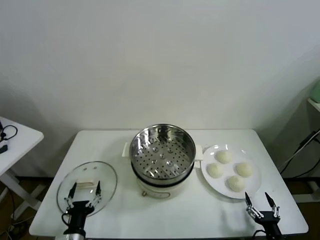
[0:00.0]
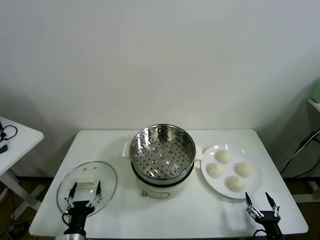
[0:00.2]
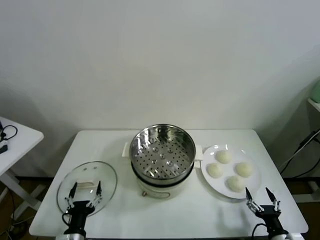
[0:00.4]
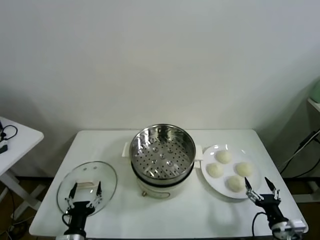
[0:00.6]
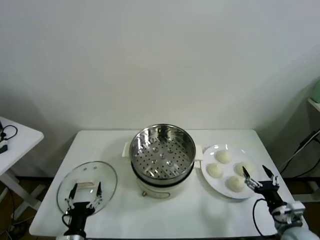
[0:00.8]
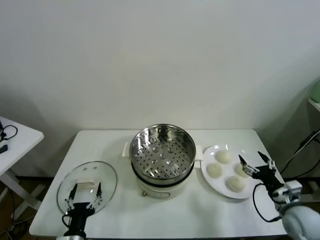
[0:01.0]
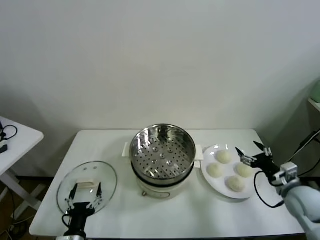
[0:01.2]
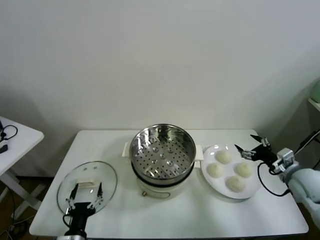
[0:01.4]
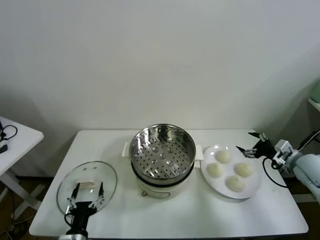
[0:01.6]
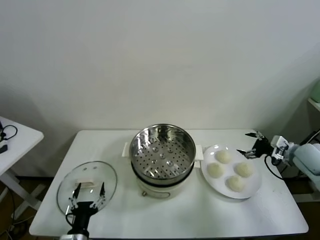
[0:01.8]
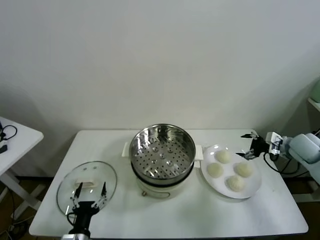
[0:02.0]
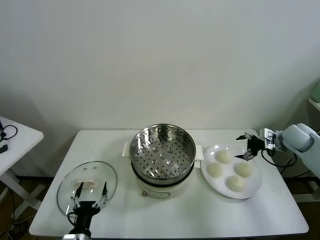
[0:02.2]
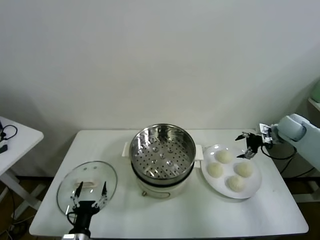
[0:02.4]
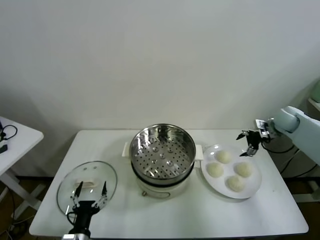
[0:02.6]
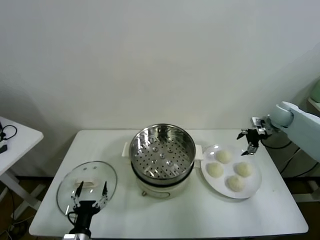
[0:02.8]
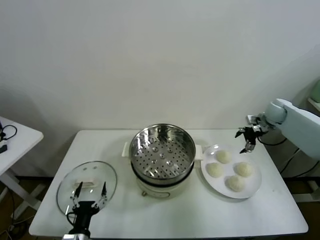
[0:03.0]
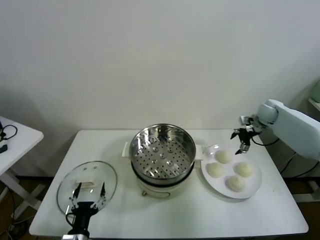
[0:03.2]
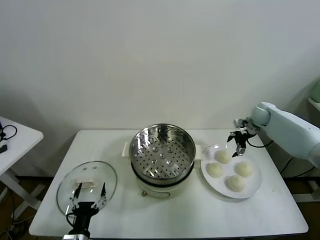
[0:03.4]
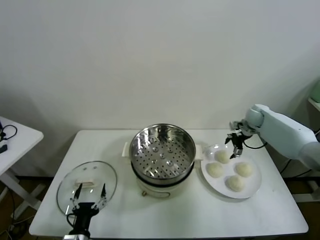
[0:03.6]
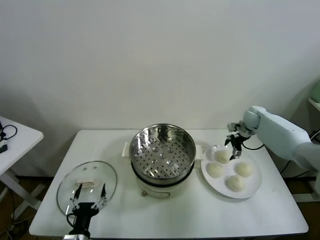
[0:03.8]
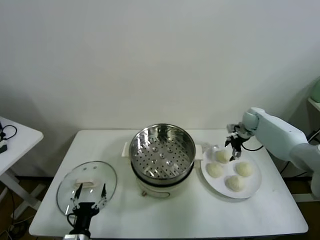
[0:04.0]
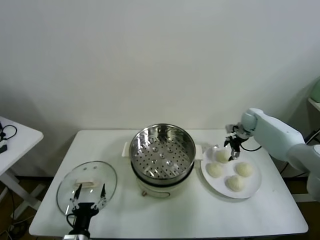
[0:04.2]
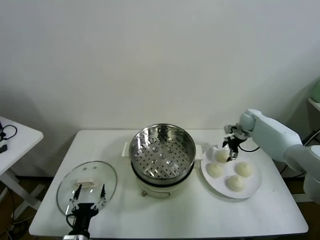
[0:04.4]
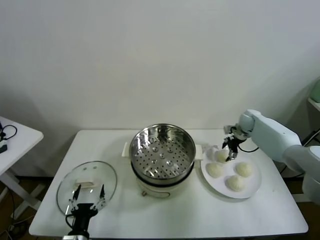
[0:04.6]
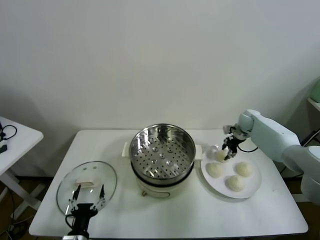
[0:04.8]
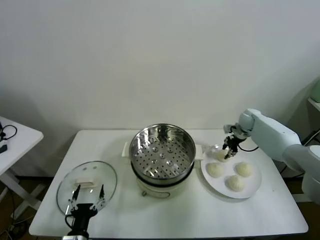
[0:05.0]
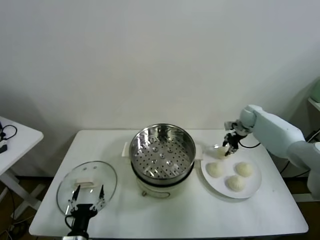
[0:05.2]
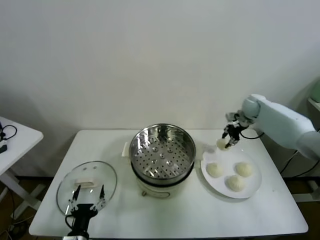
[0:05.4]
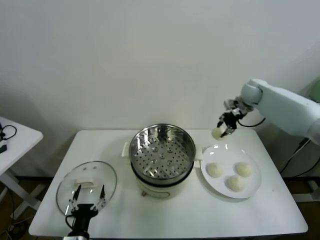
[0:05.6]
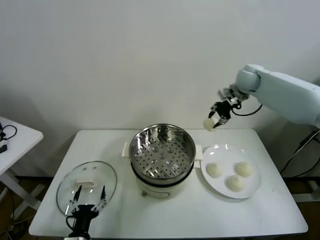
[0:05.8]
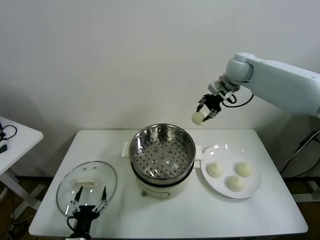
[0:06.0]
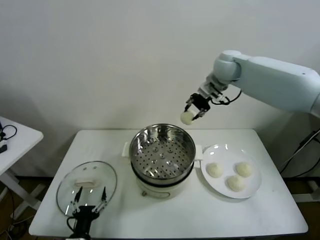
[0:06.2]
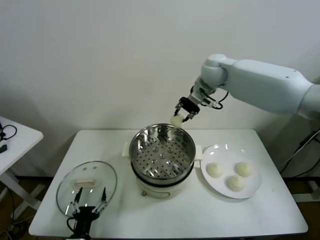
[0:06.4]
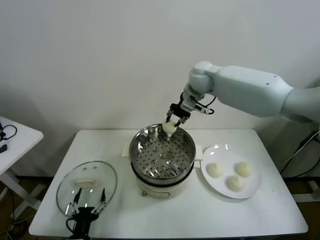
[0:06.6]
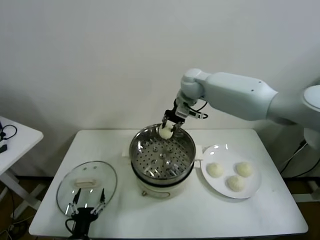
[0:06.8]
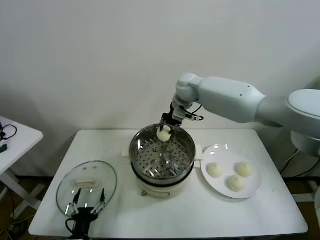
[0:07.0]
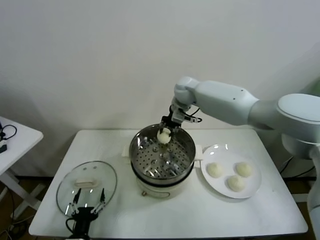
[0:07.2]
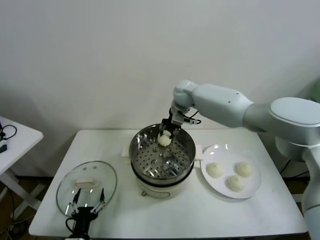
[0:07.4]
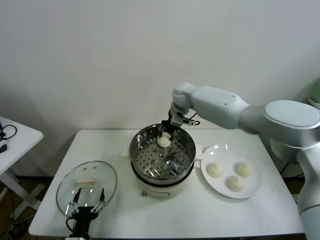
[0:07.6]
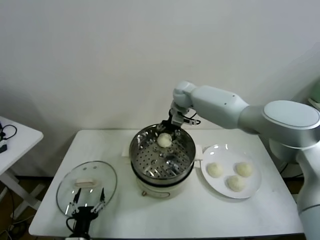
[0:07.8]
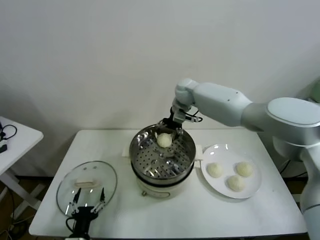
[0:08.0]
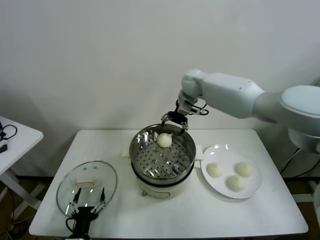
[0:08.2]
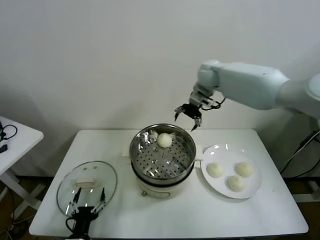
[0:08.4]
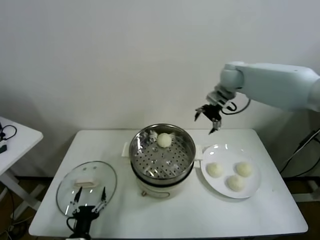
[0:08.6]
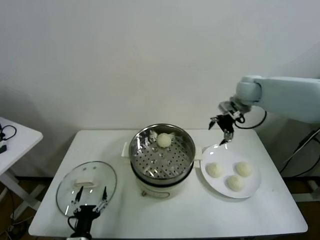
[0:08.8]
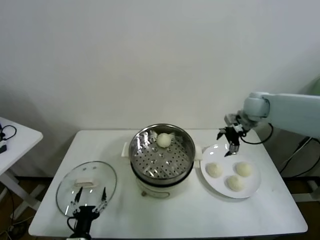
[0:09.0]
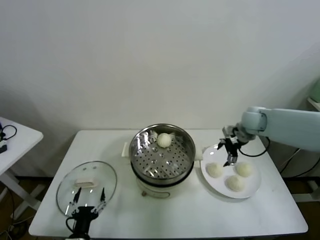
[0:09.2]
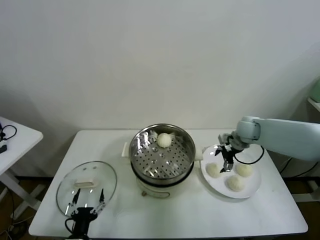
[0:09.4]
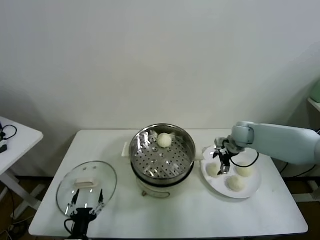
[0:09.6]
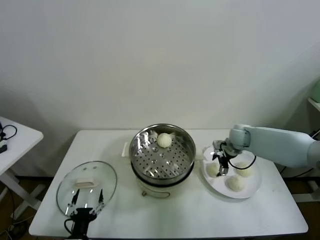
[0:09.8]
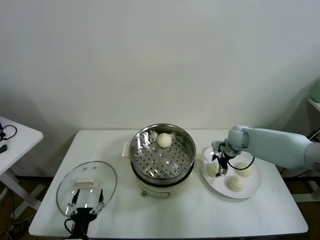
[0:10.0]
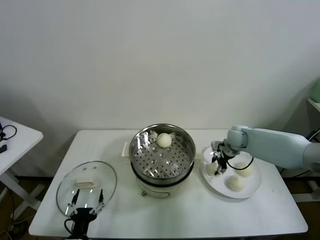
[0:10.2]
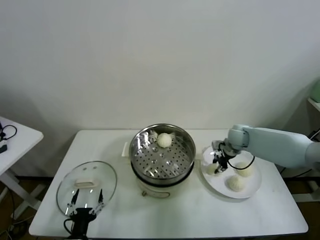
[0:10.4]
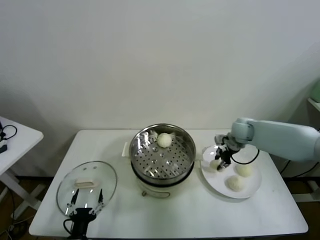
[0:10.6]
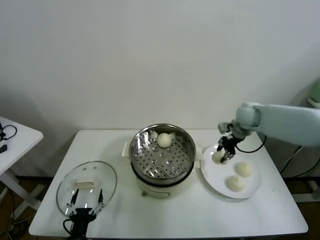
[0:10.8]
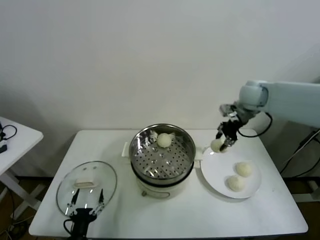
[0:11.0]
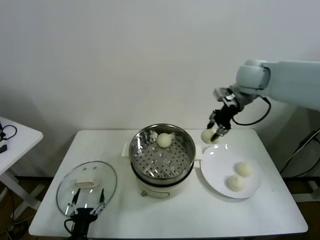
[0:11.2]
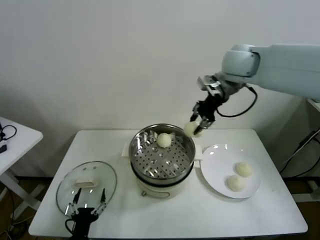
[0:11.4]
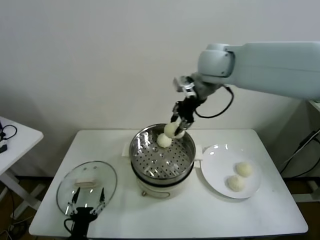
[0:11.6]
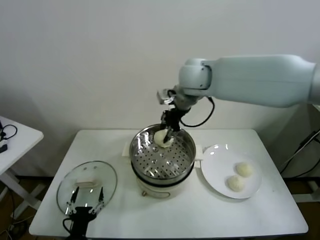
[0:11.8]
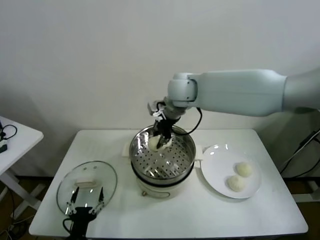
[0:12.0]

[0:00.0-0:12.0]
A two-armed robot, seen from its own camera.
Task of the whole recording: take steamed baozi put them in steamer.
Step, 0:00.0 to 0:04.6: Grasp the baozi in the plate with right gripper.
Step, 0:04.8 to 0:07.8: Place the baozi on the steamer with right gripper.
Step, 0:08.0 to 0:10.0: Grasp the baozi in the plate with right gripper.
0:01.6 to 0:03.0: The right gripper moves forward, approximately 20 cm.
0:03.0 to 0:04.4: The right gripper heads downward and to the left, covering approximately 10 cm.
0:04.4 to 0:06.0: The right gripper travels upward and to the left by some 30 cm, and closes its fingers.
0:06.0 to 0:07.6: The right gripper moves to the left and downward, some 20 cm.
0:07.6 to 0:09.0: The right gripper is displaced to the right by approximately 25 cm, and opens its fingers.
0:09.0 to 0:10.4: The right gripper shifts roughly 15 cm downward, and closes up.
0:10.4 to 0:12.0: The right gripper moves to the left and upward, some 35 cm.

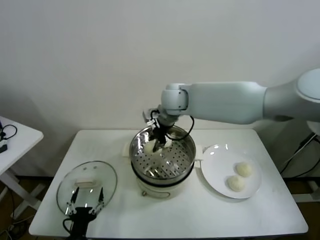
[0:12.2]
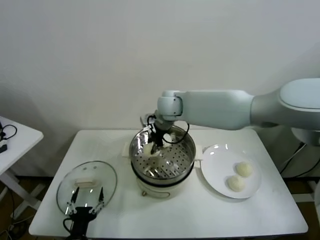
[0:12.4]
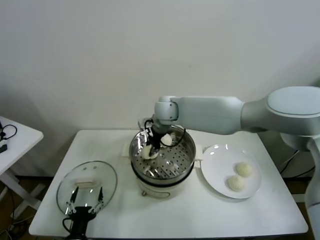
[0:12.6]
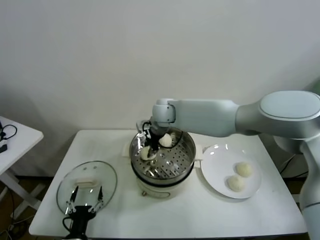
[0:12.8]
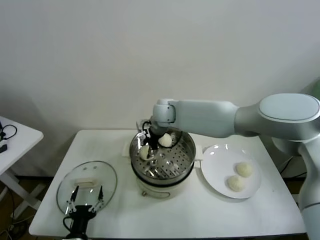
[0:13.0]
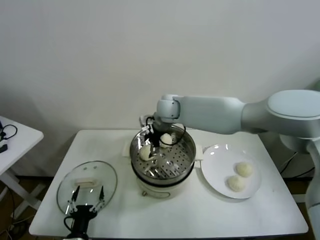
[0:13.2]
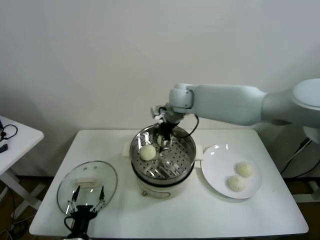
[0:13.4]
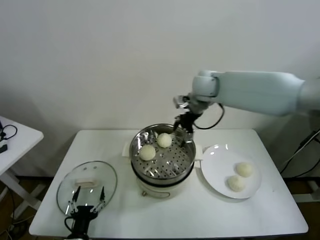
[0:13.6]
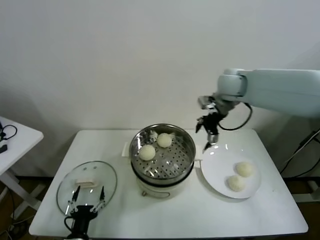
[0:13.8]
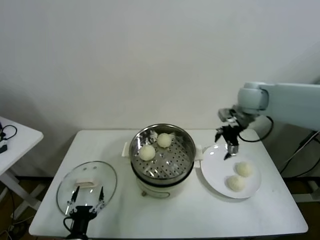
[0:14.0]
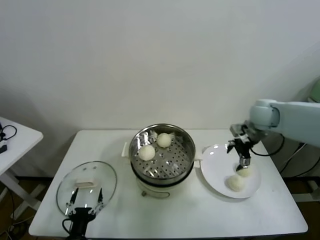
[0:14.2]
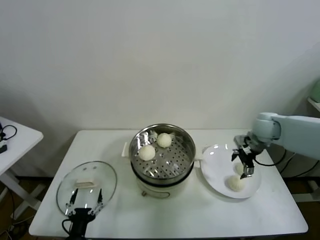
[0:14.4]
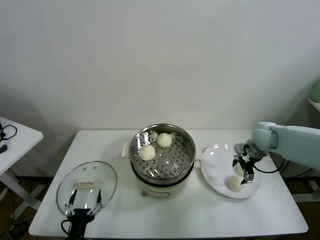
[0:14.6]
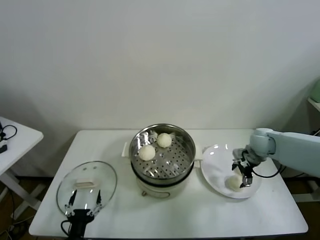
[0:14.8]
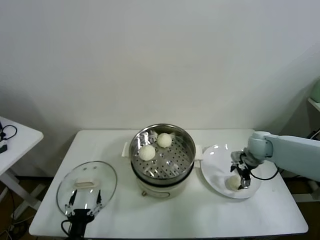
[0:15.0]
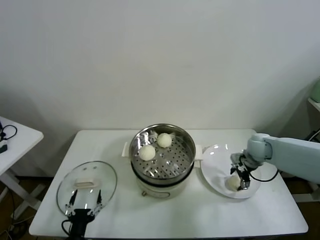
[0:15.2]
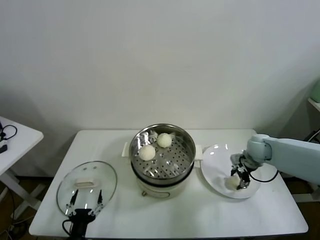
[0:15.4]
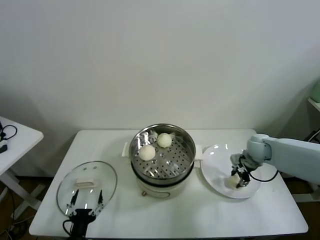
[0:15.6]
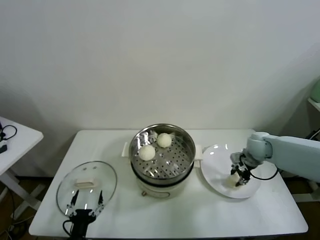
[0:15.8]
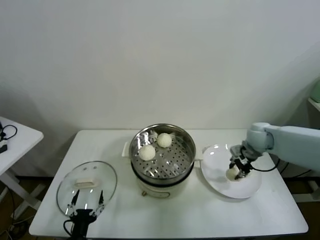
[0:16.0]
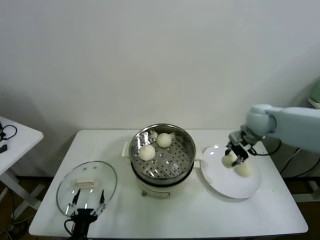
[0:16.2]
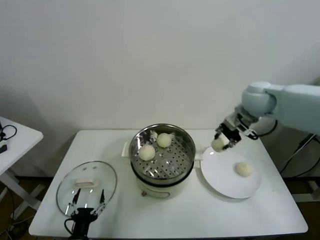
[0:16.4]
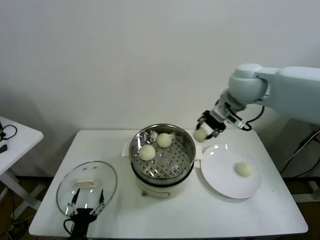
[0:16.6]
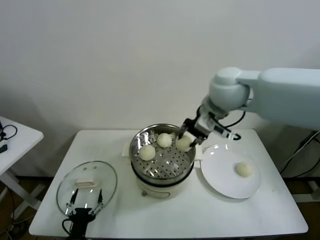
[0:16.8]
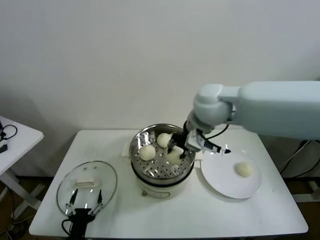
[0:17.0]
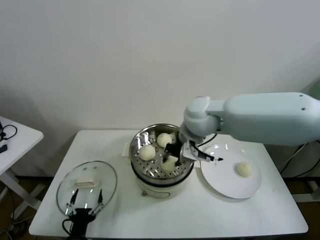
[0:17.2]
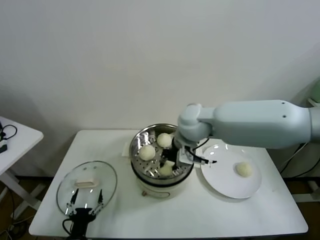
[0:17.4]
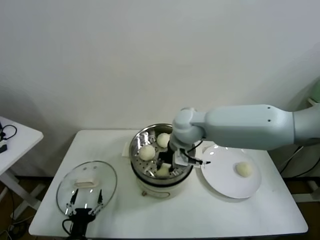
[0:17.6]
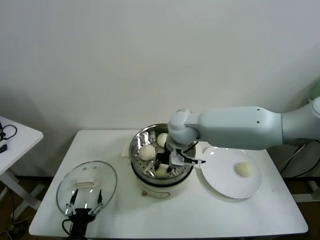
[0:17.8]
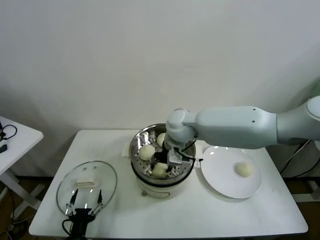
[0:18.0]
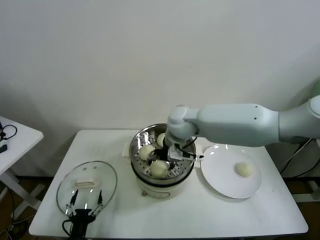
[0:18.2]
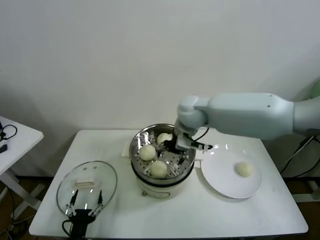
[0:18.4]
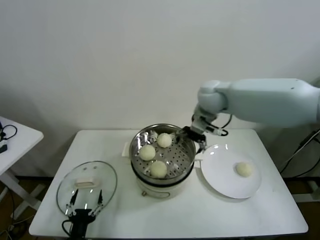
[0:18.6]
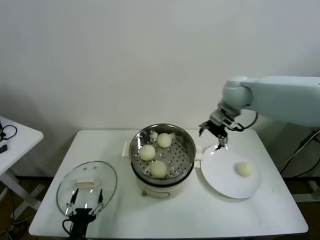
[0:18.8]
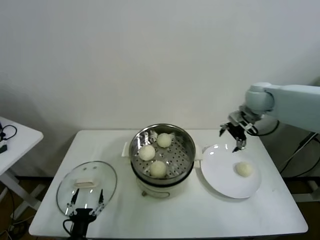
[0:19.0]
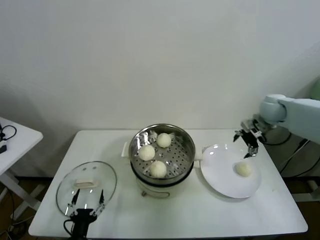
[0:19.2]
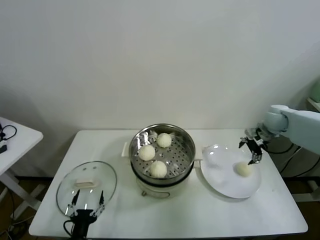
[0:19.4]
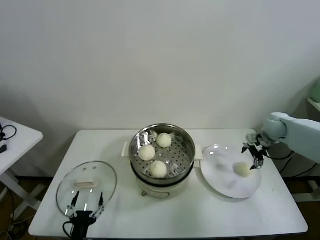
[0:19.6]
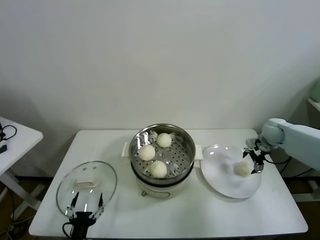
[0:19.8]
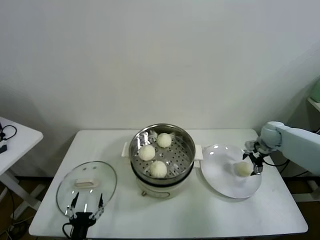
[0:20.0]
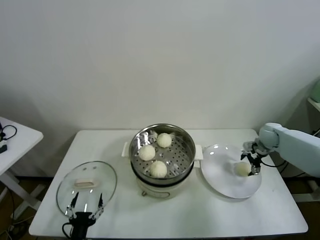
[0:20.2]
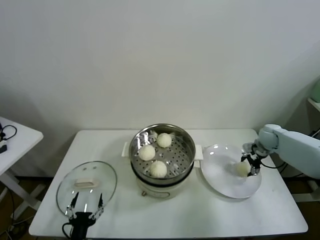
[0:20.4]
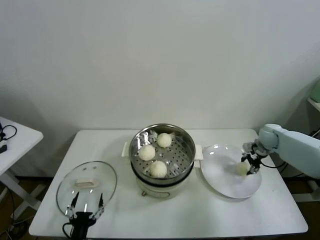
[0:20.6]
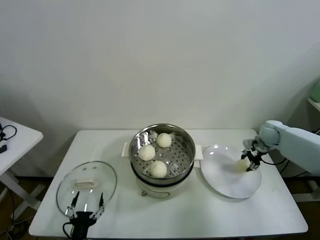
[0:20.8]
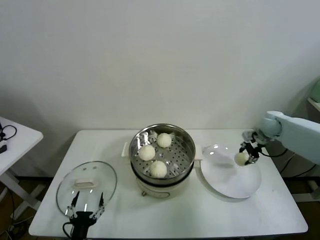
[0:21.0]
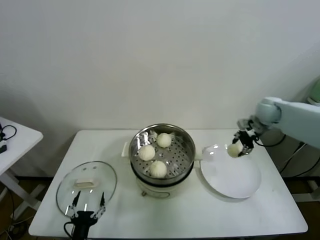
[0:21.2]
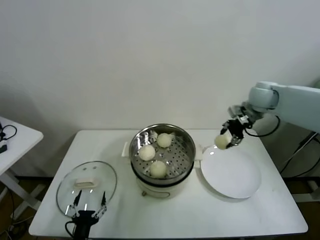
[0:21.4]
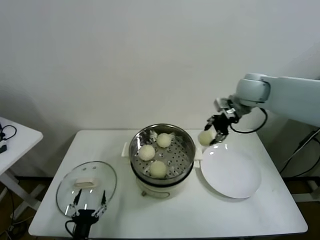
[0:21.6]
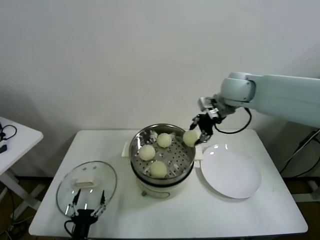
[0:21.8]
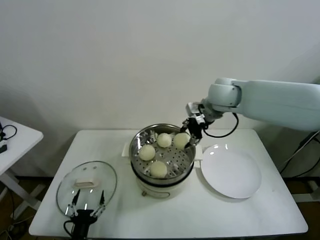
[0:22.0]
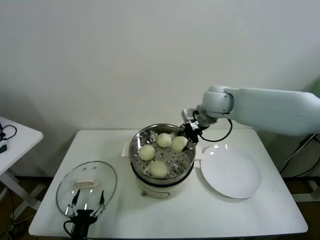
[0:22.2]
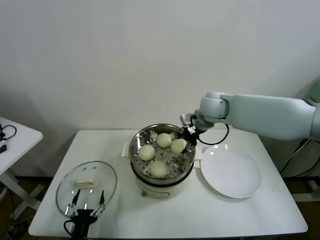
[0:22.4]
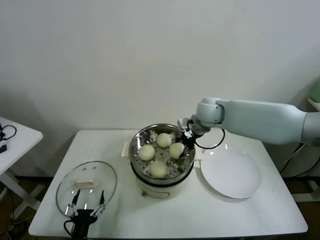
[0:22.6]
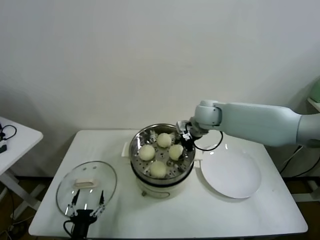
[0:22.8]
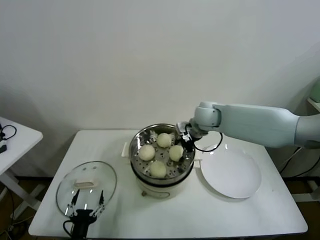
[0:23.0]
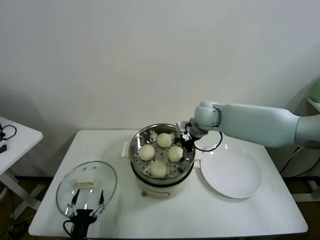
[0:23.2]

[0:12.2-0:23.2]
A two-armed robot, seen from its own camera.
Task of the whole recording: take steamed baozi put them in steamer.
Step, 0:13.2 to 0:15.2: Grasp the baozi in the plate with right gripper.
Step, 0:15.6 to 0:18.0: Place the baozi on the steamer with right gripper.
Step, 0:18.2 to 0:20.4: Grasp the baozi in the plate with right gripper.
Step, 0:20.6 to 0:23.0: Place the baozi on the steamer with right gripper.
0:12.2 to 0:13.8: The right gripper goes roughly 20 cm to the right, and opens its fingers.
0:13.8 to 0:15.4: The right gripper moves downward and to the right, some 25 cm, and closes up.
0:15.4 to 0:17.0: The right gripper heads upward and to the left, covering approximately 35 cm, and closes up.
0:17.0 to 0:18.4: The right gripper goes some 10 cm downward and forward, and opens.
0:18.4 to 0:20.0: The right gripper is displaced to the right and downward by approximately 40 cm.
0:20.0 to 0:21.6: The right gripper shifts approximately 25 cm upward and to the left, and closes its fingers.
0:21.6 to 0:23.2: The right gripper goes about 15 cm to the left and downward, and opens its fingers.
